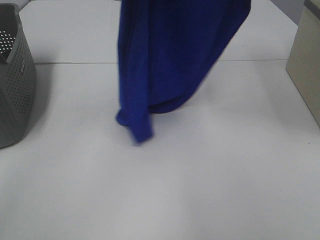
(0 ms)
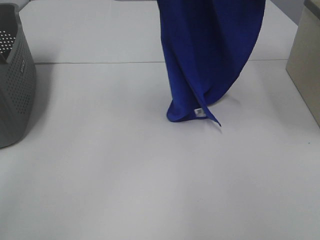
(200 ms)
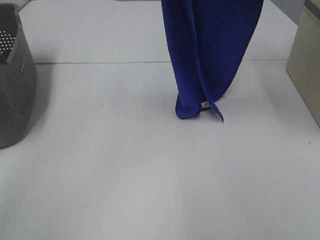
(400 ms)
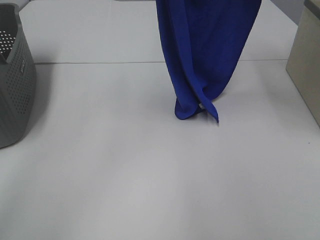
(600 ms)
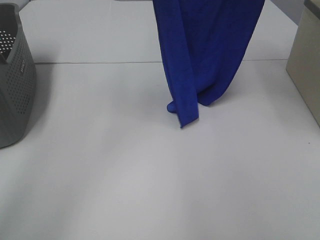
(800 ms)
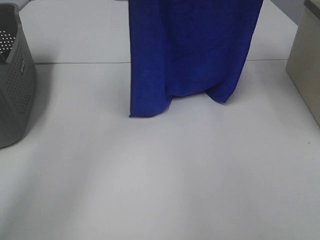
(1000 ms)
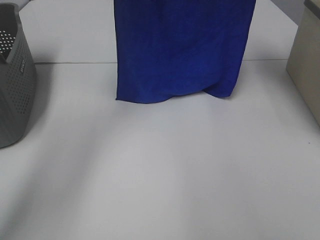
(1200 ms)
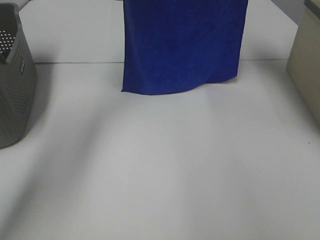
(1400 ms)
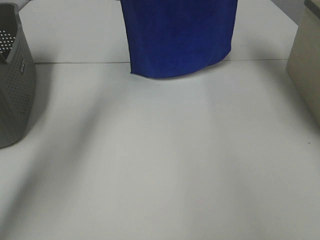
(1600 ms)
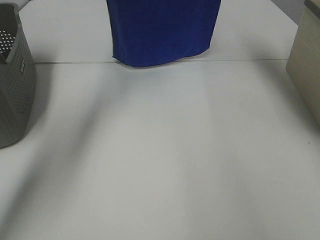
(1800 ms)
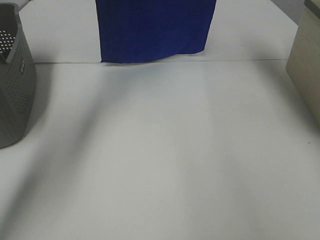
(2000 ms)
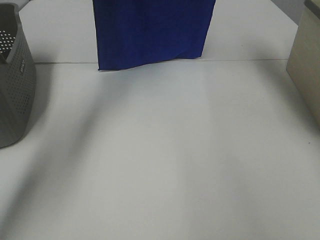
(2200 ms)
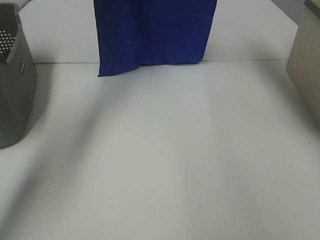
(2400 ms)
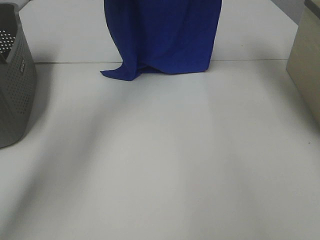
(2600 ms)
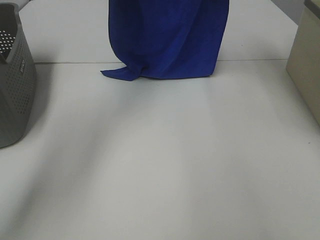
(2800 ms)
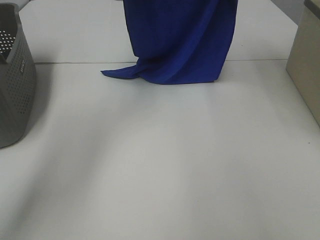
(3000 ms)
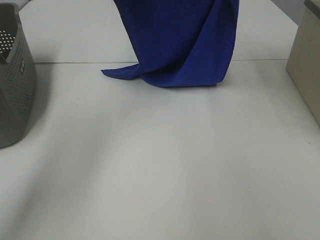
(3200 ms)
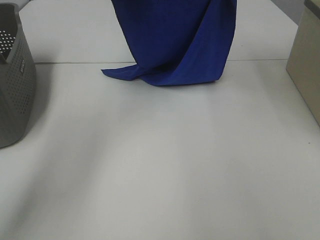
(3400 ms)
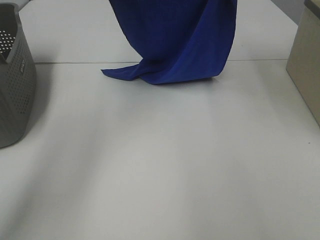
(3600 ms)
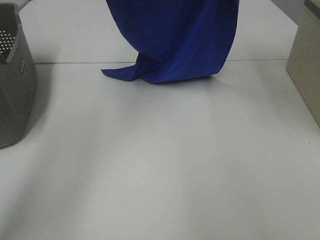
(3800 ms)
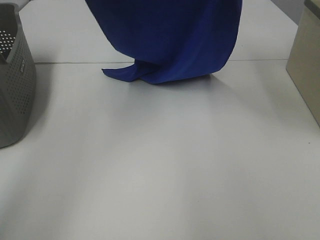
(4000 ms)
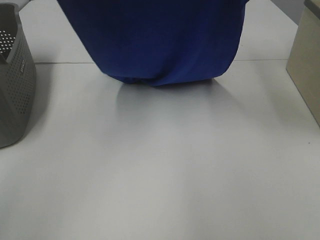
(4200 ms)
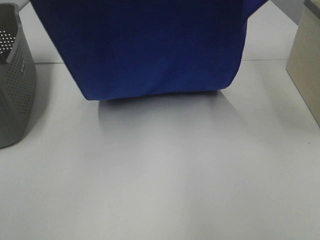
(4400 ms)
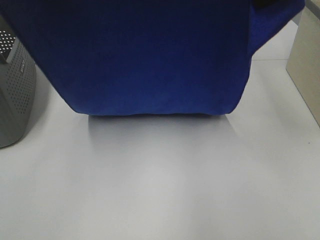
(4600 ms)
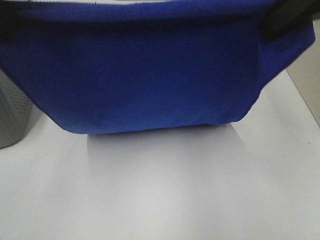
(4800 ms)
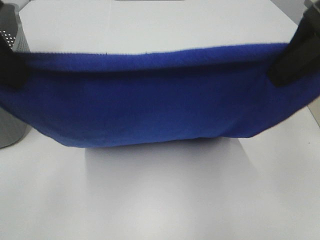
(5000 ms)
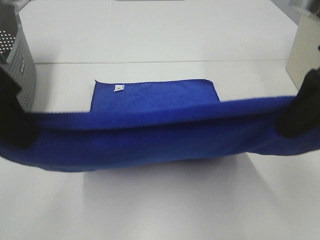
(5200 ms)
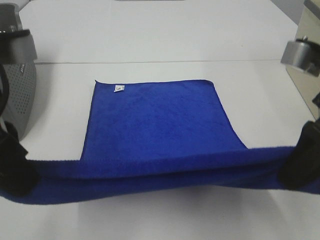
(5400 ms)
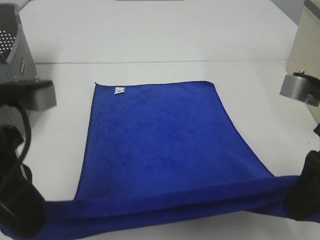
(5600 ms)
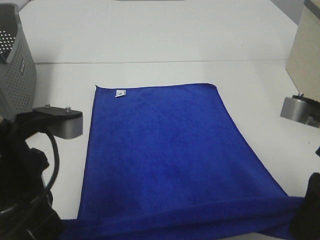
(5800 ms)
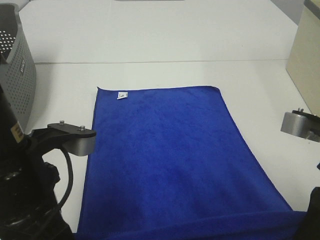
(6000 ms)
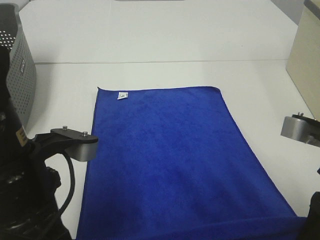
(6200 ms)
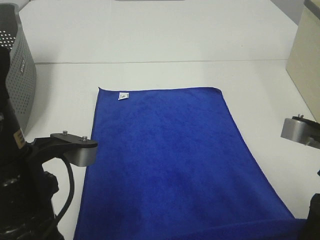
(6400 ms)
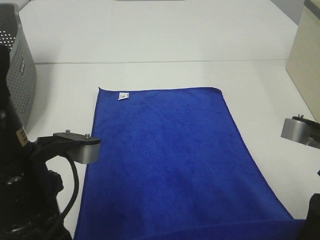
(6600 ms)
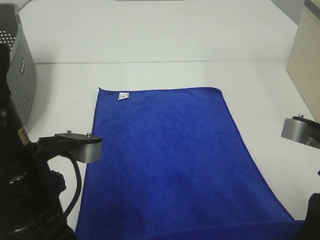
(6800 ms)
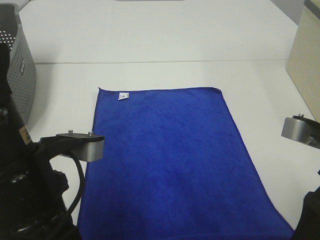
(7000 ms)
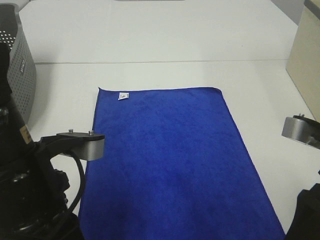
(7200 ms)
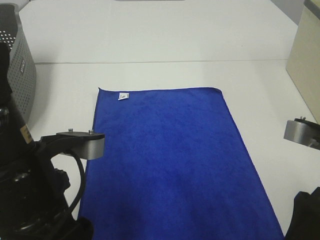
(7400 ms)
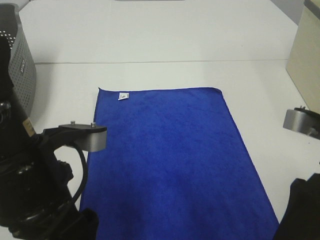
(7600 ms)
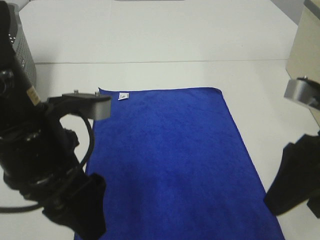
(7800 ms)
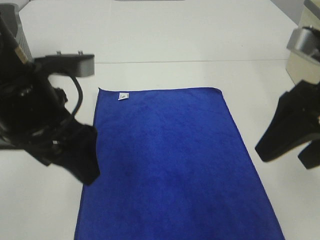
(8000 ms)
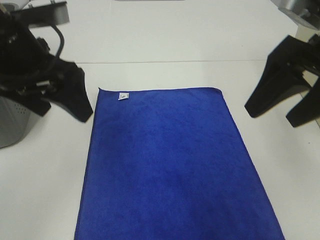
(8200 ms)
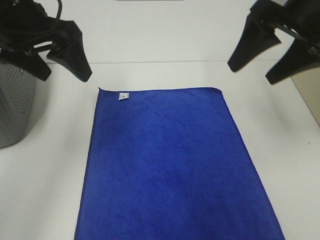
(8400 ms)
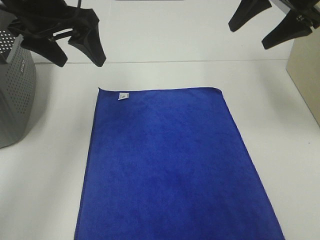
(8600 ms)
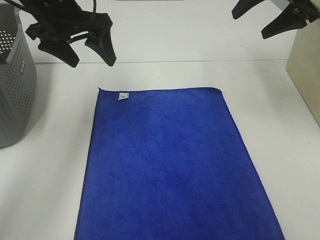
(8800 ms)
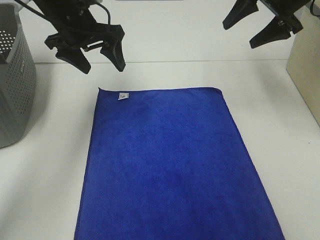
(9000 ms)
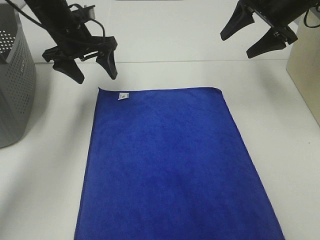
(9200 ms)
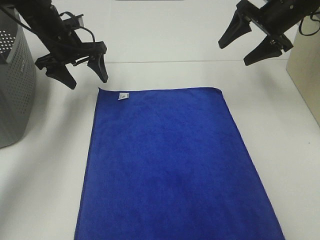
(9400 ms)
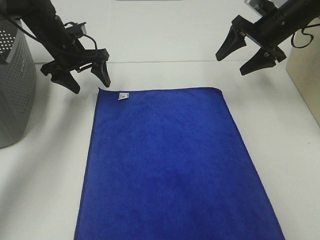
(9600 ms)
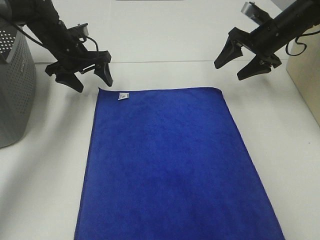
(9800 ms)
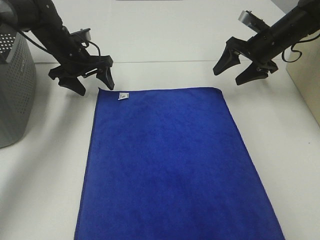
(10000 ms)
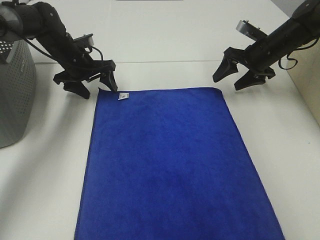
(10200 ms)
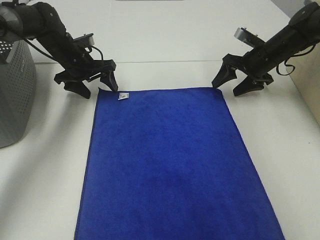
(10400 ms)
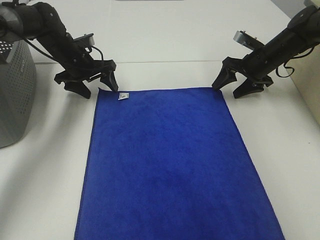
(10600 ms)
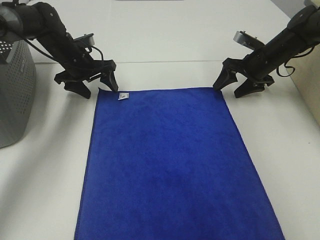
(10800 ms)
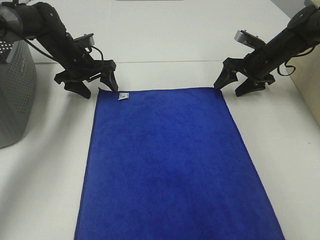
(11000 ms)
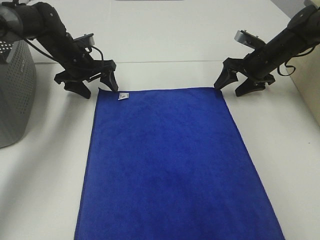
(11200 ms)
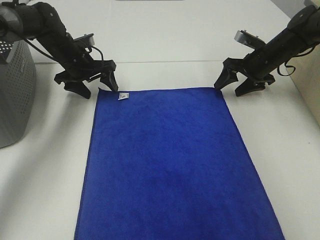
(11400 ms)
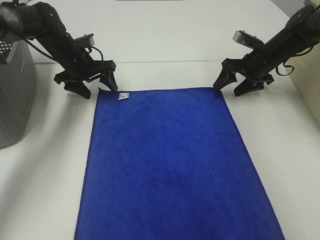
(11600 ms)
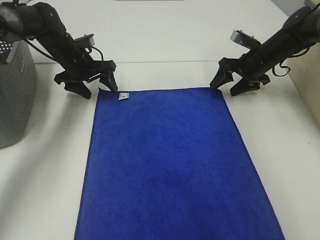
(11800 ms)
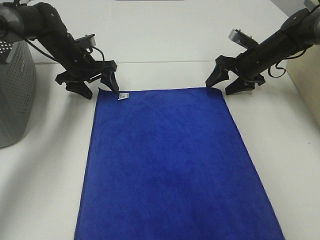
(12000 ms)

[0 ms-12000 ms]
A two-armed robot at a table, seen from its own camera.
Task of the whole recording: Remove the towel and place it.
Step, 0 ms to 3400 ms: Left hand: spread the blue towel flat on the table.
Step, 0 ms to 3400 ms: Right hand: spread the blue towel flat on the table.
Step, 3600 ms to 11200 ms: Left hand:adjust the blue towel.
Step, 3600 ms to 11200 ms: Right hand:adjust the blue towel.
0 ms to 1600 ms: The two grippers go some 15 cm forward.
1600 ms to 3000 ms: The left gripper moves roughly 5 cm. The right gripper heads downward, covering about 5 cm.
3000 ms to 4400 ms: Both grippers travel together backward, roughly 20 cm.
4400 ms to 6000 ms: Both grippers travel together downward and backward, roughly 25 cm.
6000 ms to 7600 ms: The left gripper opens; the right gripper opens.
7600 ms to 9000 ms: Both grippers travel together forward, approximately 30 cm.
9000 ms to 10400 ms: The right gripper shifts approximately 15 cm downward; the left gripper goes approximately 15 cm downward and forward.
10400 ms to 12000 ms: There are only small adjustments of the grippers.

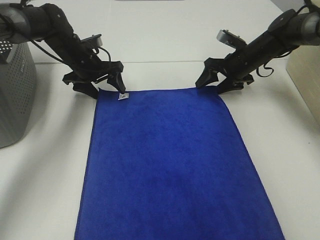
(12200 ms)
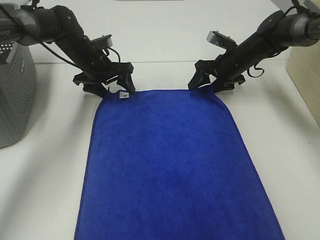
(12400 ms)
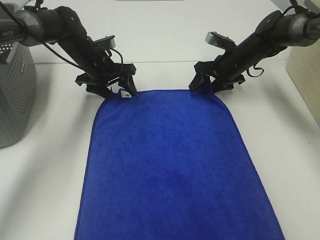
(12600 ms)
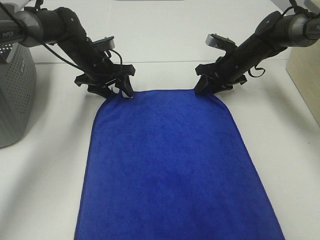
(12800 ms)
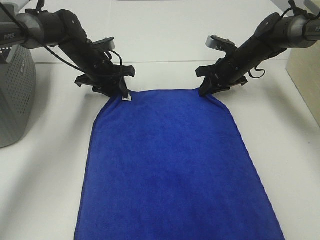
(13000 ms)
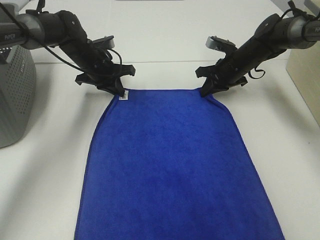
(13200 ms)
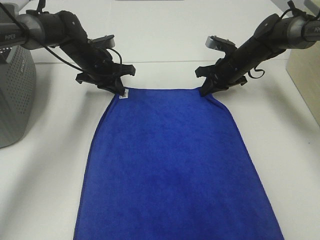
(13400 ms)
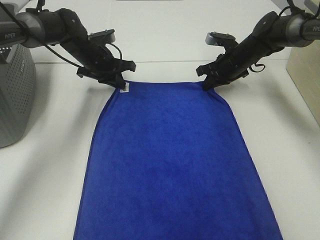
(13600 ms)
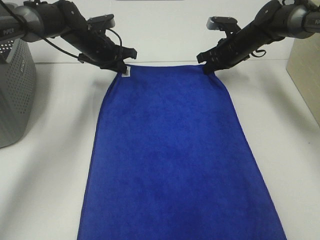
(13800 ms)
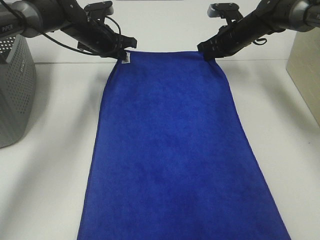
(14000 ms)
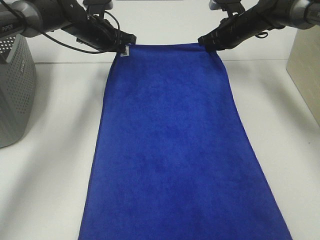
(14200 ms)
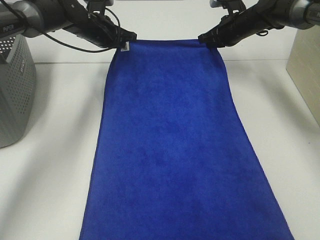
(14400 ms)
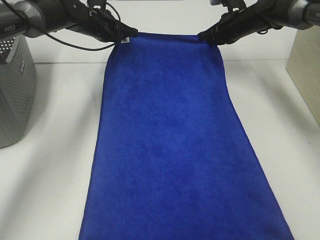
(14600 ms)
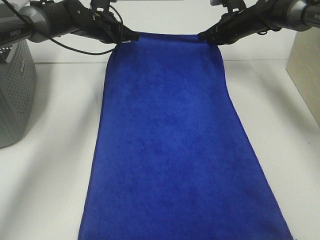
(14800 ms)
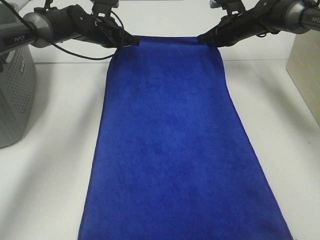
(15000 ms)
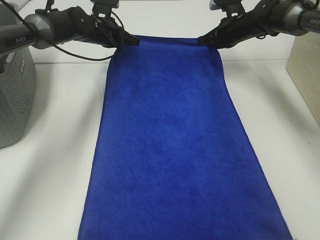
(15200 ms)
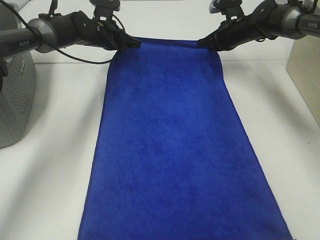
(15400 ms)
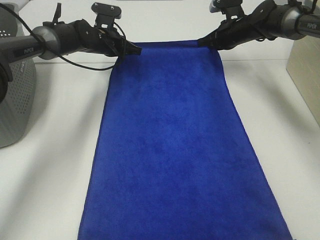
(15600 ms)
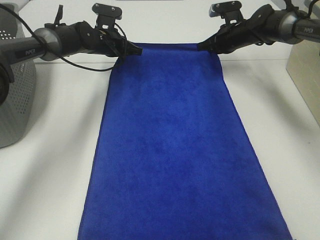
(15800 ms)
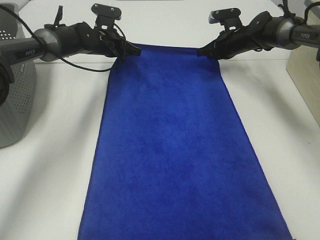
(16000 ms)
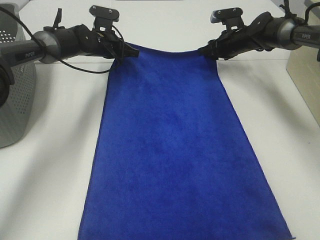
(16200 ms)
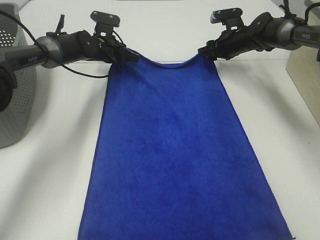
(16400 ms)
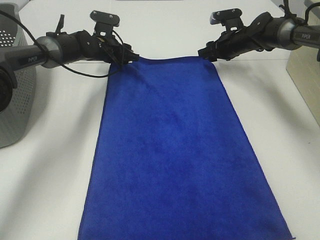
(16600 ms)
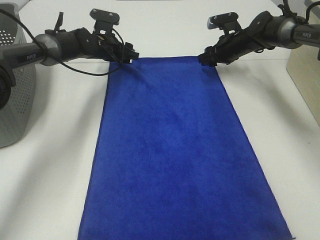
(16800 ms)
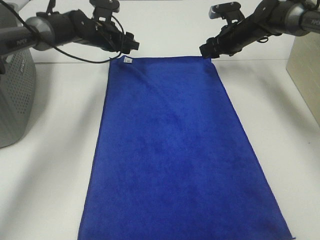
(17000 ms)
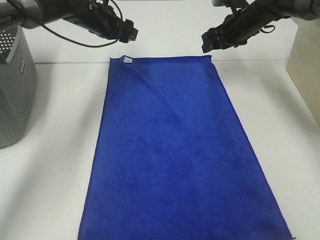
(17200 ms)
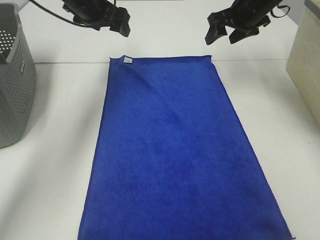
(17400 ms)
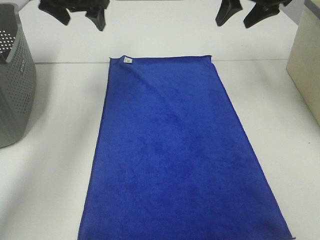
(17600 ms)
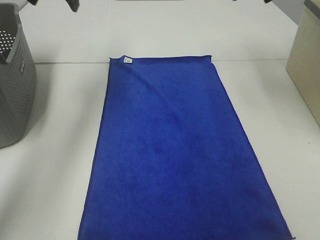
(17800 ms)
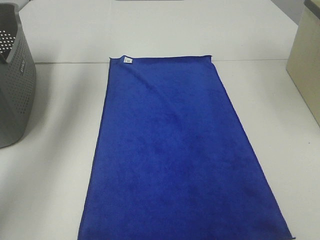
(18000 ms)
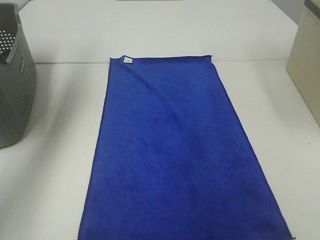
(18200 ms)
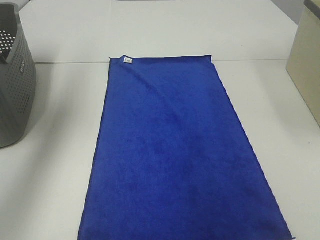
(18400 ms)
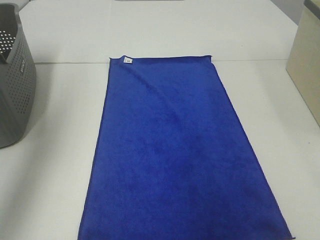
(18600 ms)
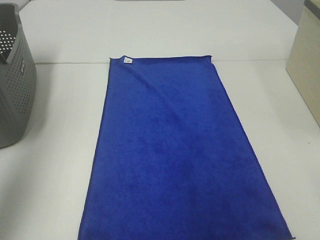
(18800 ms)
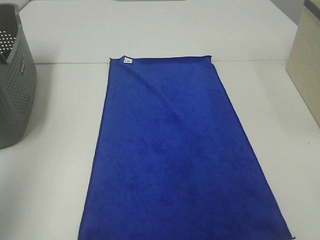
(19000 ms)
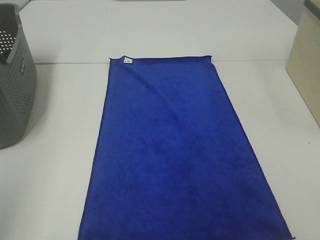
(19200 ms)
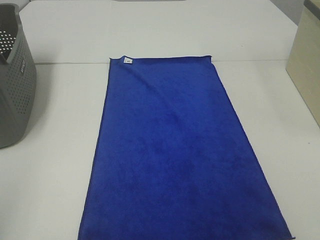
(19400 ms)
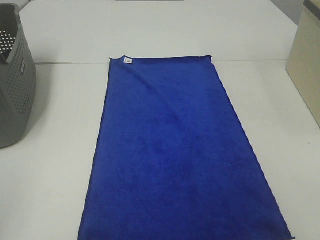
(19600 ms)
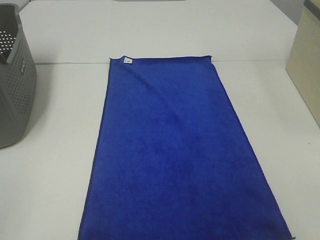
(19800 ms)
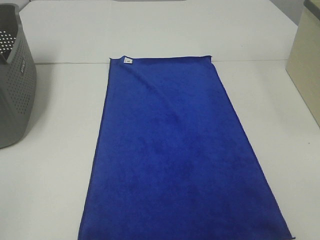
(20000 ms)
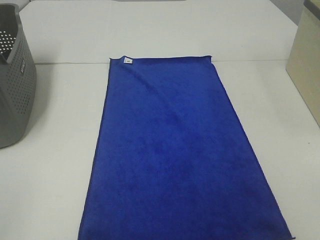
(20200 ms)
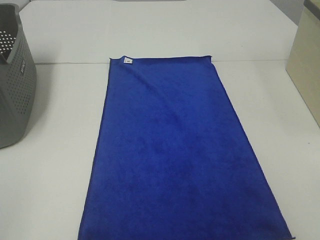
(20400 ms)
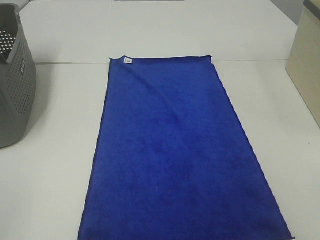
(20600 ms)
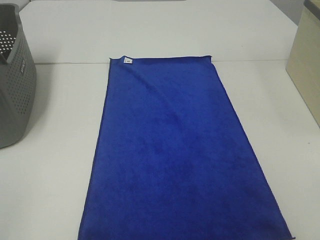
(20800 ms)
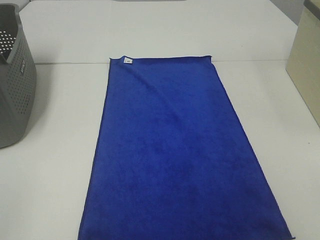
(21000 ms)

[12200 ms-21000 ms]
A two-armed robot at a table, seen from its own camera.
Task of the whole recording: Remove the towel and place it.
12200 ms to 13600 ms: The left gripper closes. The right gripper closes its fingers.
13600 ms to 15200 ms: The left gripper ends up roughly 5 cm from where it was, while the right gripper ends up some 5 cm from where it was.
15200 ms to 16600 ms: The left gripper opens; the right gripper opens its fingers.
16600 ms to 18000 ms: The left gripper moves upward, backward and to the left, approximately 35 cm. Meanwhile the right gripper is displaced upward and backward by roughly 35 cm.
18000 ms to 19600 ms: The left gripper moves backward, approximately 40 cm.

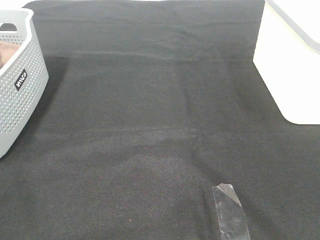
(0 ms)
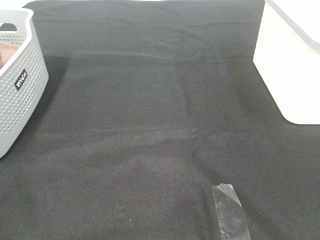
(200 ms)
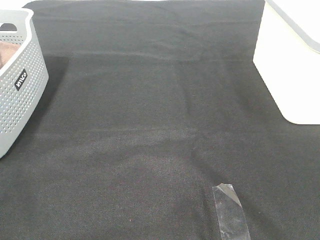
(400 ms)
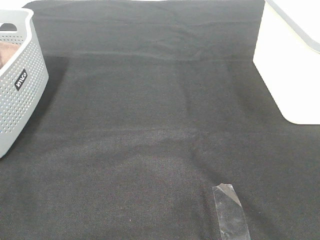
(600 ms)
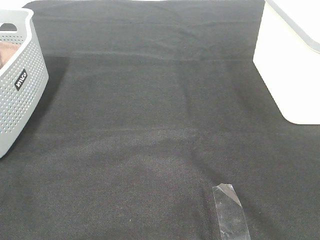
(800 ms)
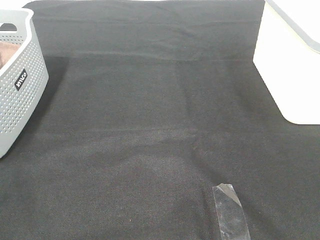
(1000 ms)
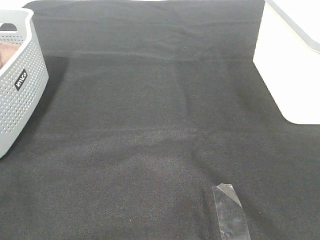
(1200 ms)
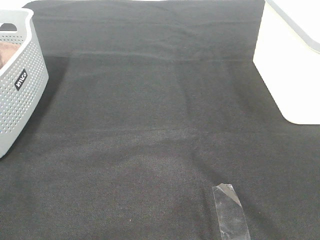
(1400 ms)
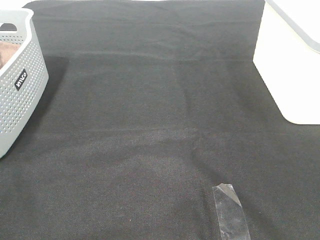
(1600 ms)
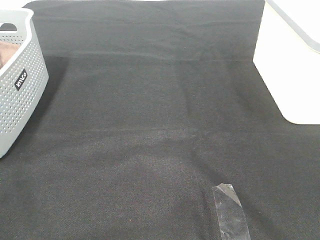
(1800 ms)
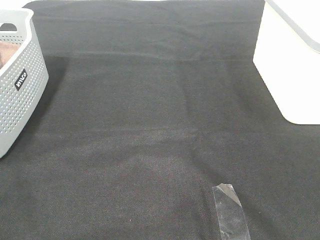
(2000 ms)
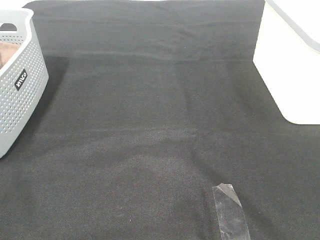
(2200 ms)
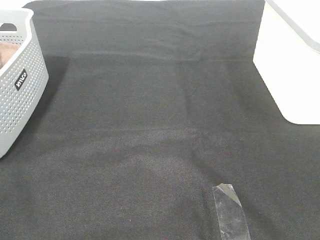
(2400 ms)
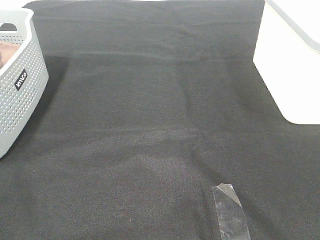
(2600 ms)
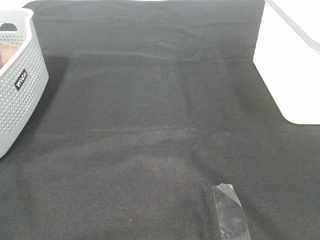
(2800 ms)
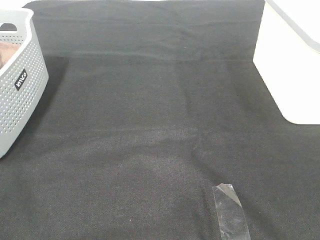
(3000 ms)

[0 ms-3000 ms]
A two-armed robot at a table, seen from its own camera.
Task of the whole recording: Remove the towel and place it.
0 ms to 3000 ms: The two grippers keep their place.
